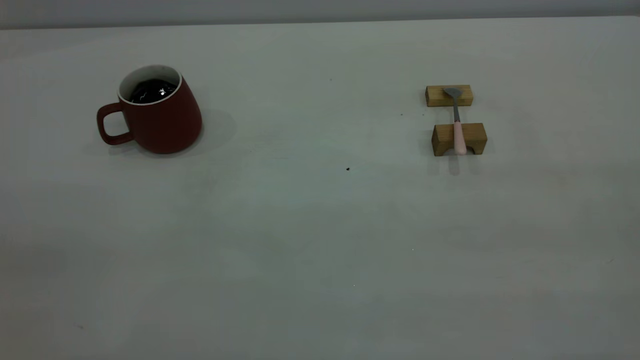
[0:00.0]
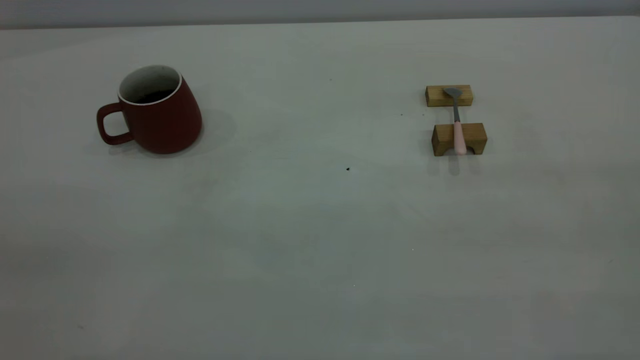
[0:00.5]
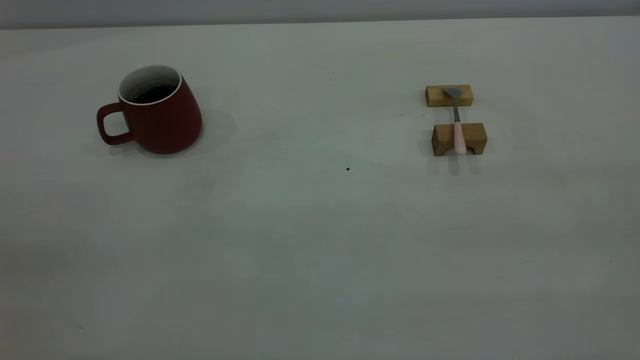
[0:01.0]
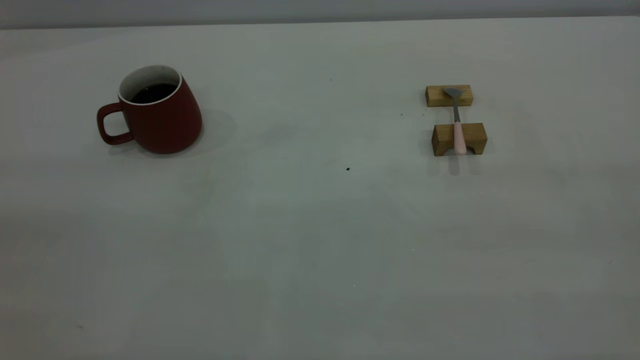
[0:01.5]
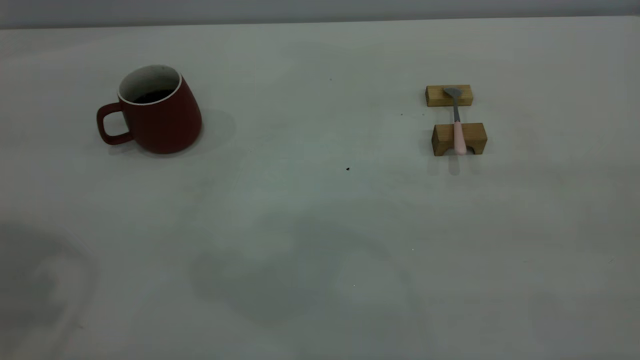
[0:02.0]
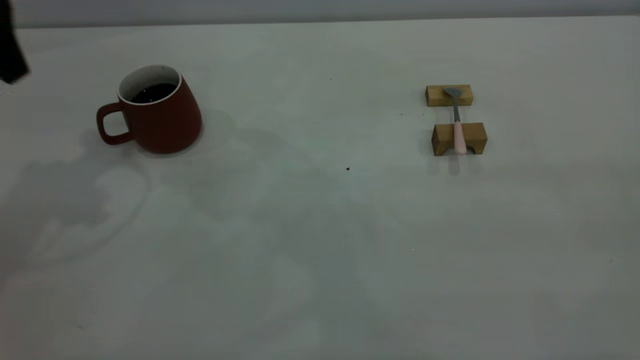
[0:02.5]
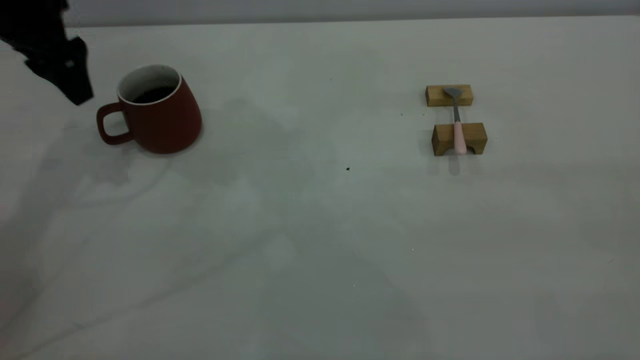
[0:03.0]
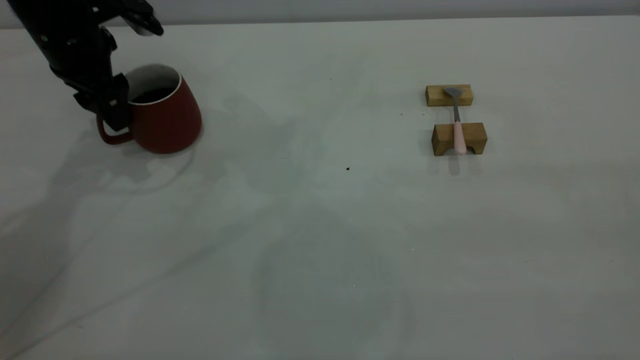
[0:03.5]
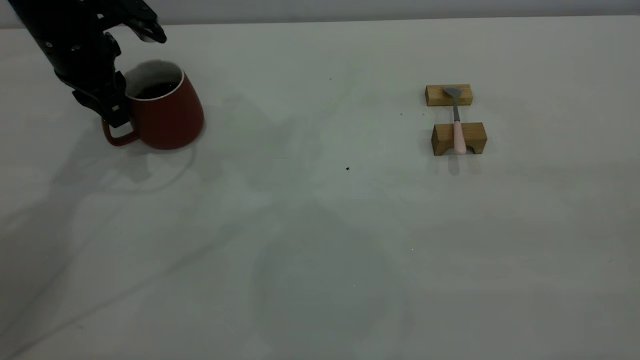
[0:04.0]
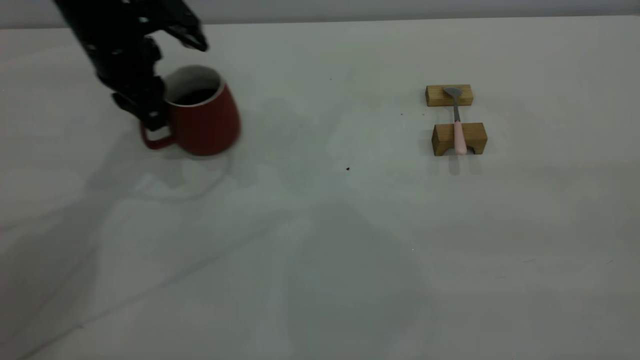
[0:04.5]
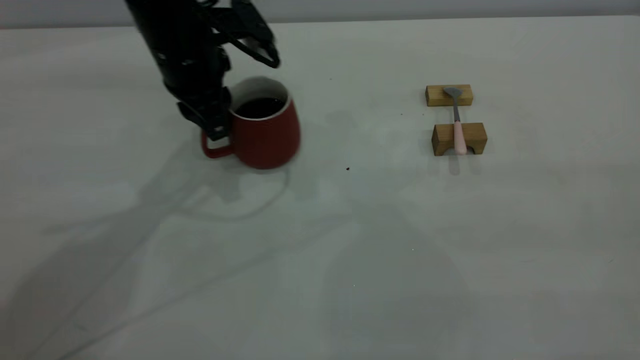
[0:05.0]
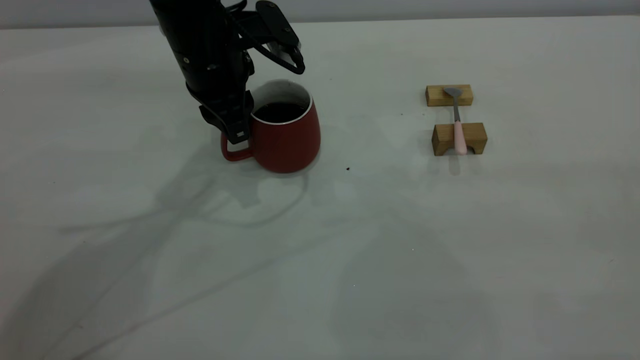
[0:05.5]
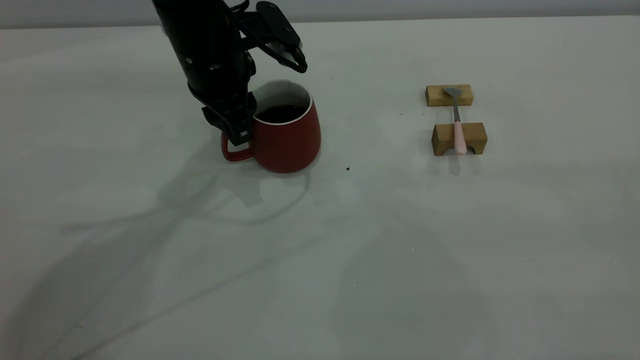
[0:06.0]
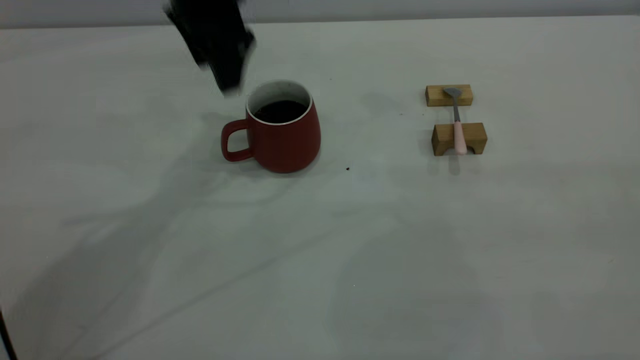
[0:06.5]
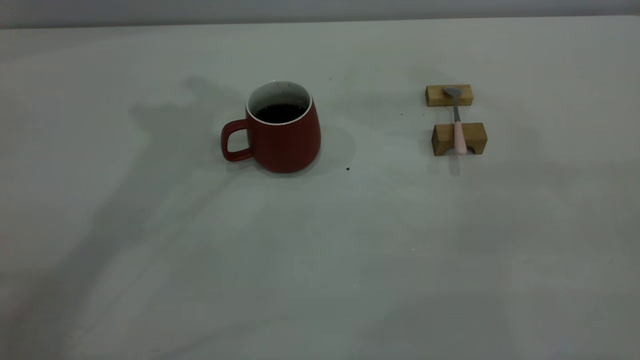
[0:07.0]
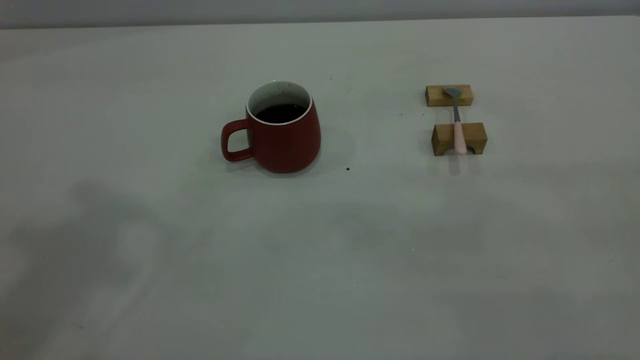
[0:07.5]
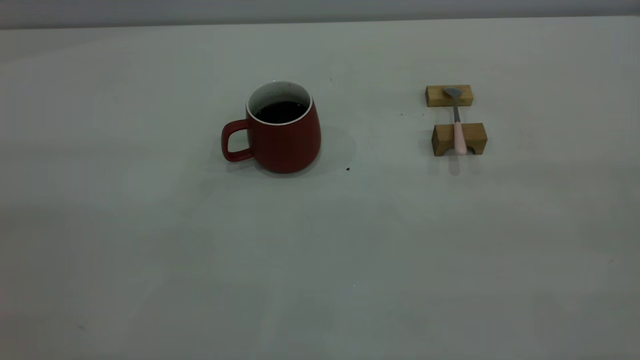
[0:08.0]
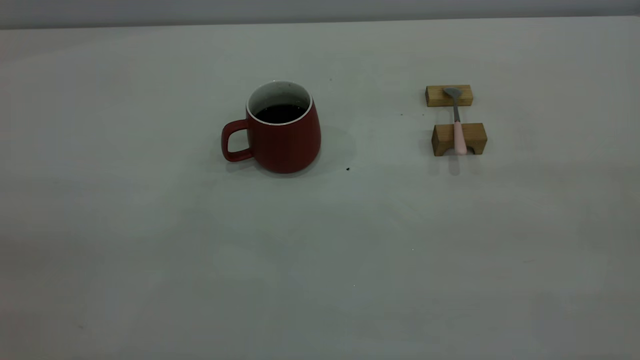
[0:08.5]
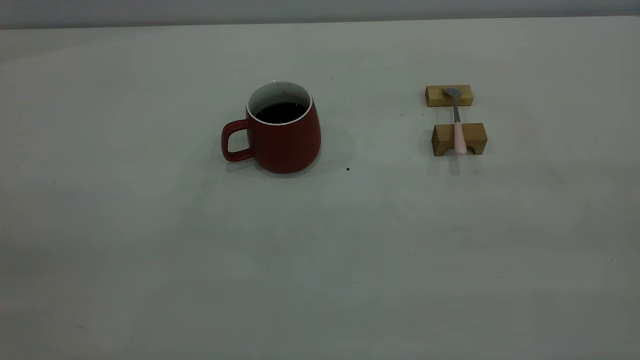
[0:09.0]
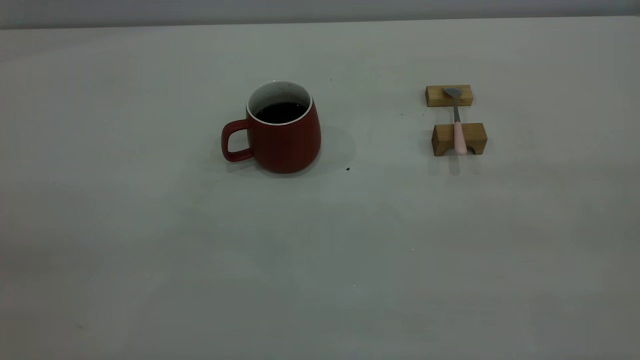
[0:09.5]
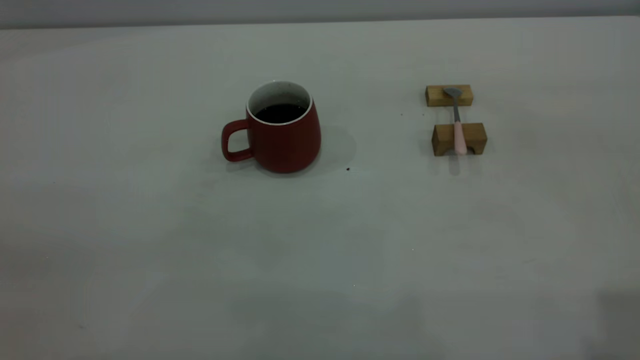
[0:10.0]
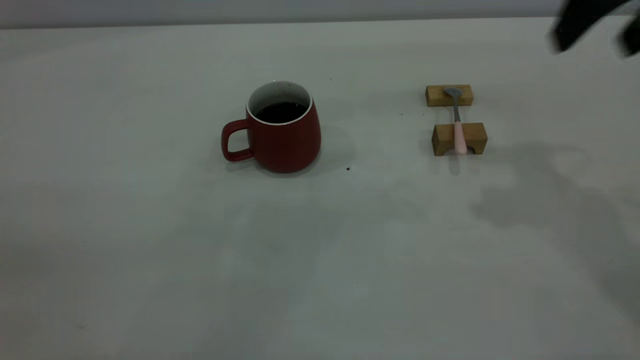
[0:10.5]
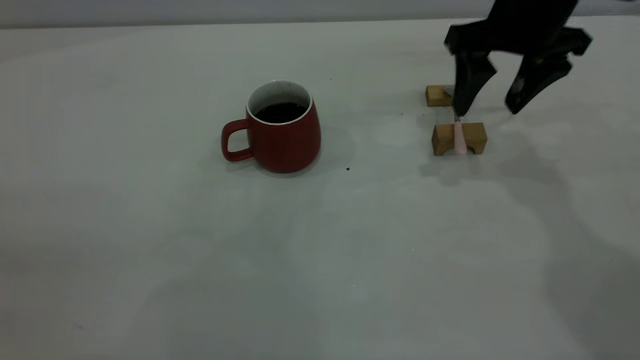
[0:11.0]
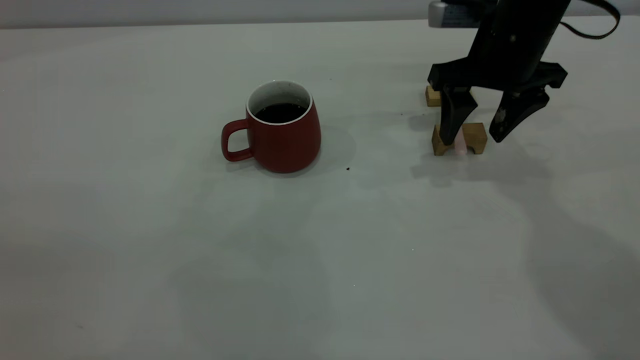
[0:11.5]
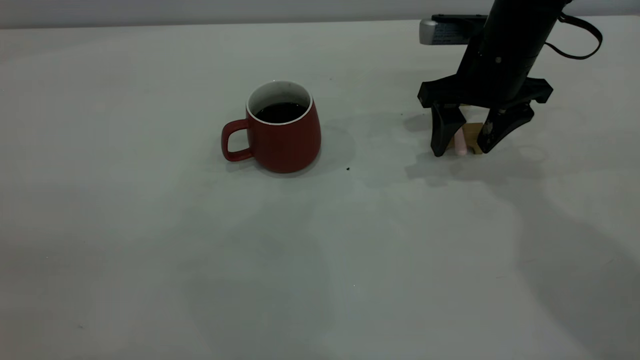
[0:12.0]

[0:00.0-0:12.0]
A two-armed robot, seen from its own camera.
Step, 0:00.0 to 0:06.0: Move the cup with coffee to the center of view.
0:02.0 to 0:04.0: The left gripper travels downward and forward by about 30 cm, and closes up.
0:04.0 to 0:06.0: The left gripper heads to the right, covering approximately 15 cm.
0:06.0 to 0:08.0: The left gripper travels backward, upward and to the left by some 50 cm, and opens, then closes again.
0:10.0 to 0:12.0: The right gripper travels downward, forward and to the left by roughly 40 cm.

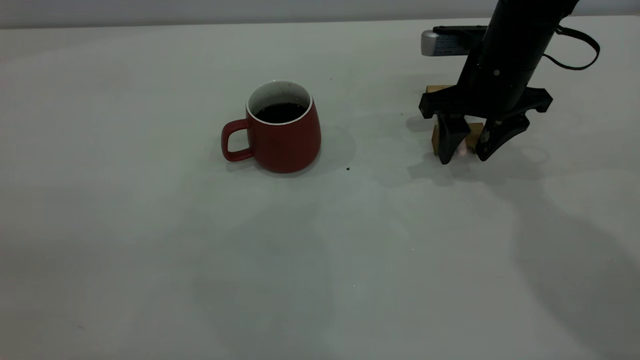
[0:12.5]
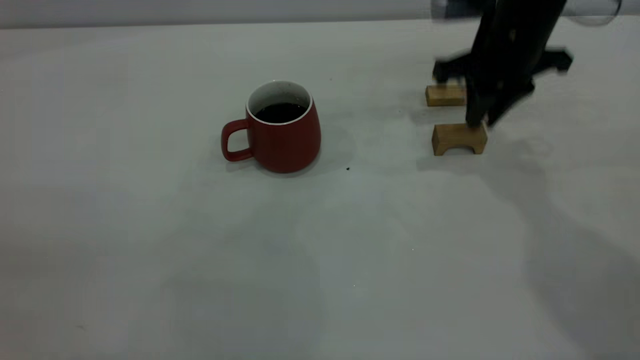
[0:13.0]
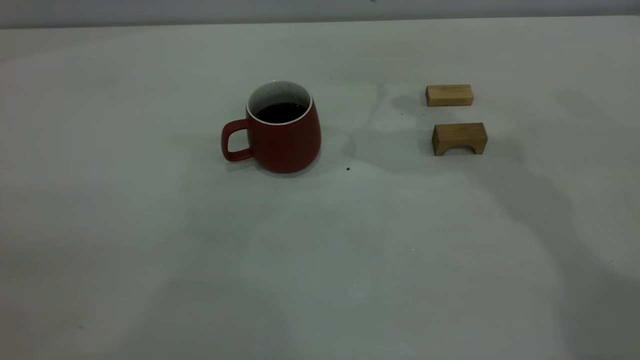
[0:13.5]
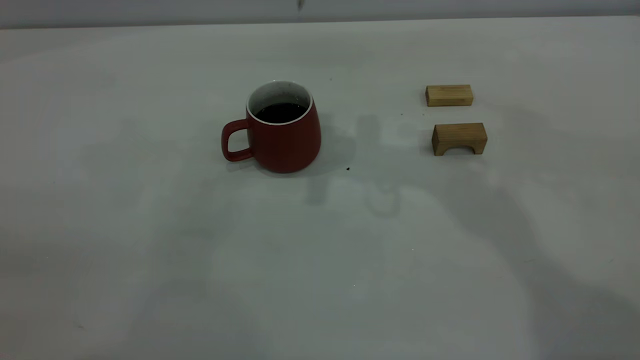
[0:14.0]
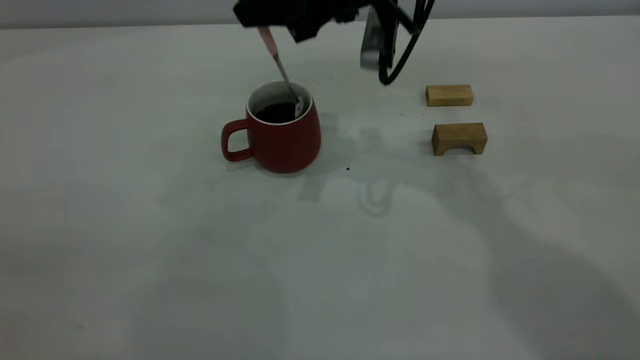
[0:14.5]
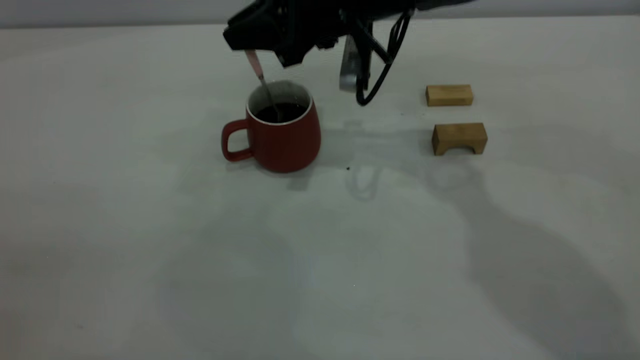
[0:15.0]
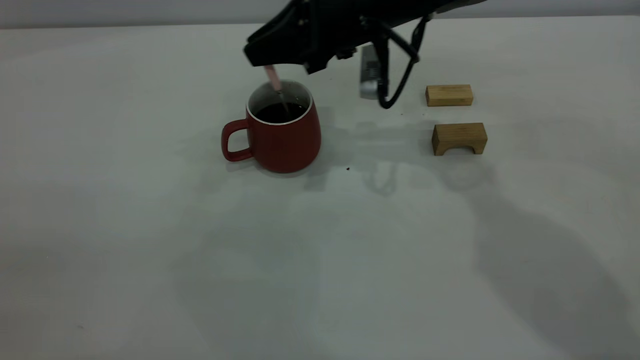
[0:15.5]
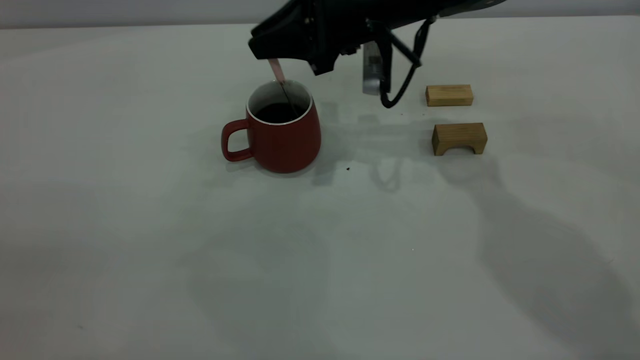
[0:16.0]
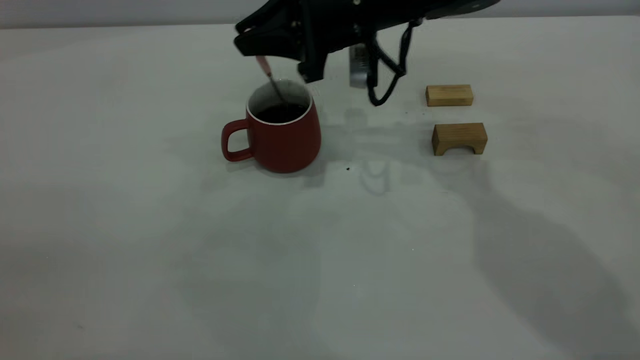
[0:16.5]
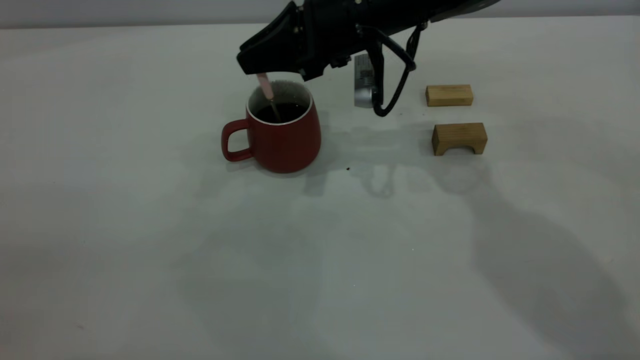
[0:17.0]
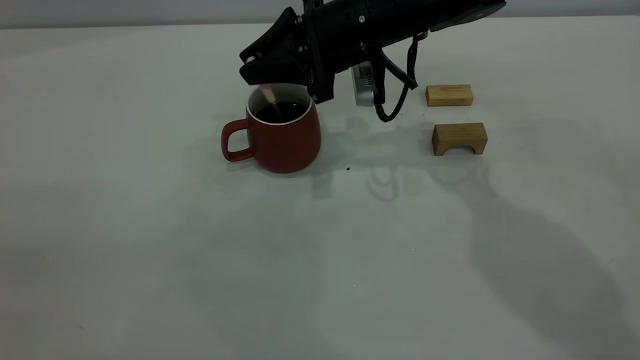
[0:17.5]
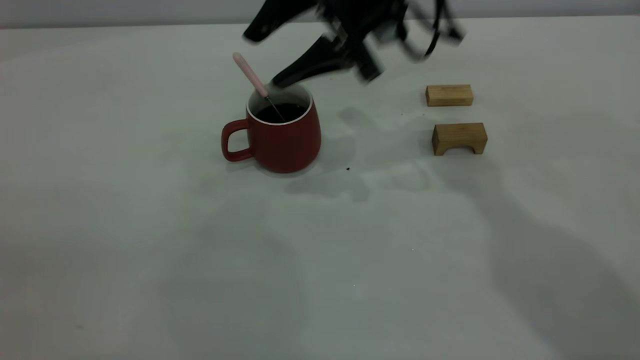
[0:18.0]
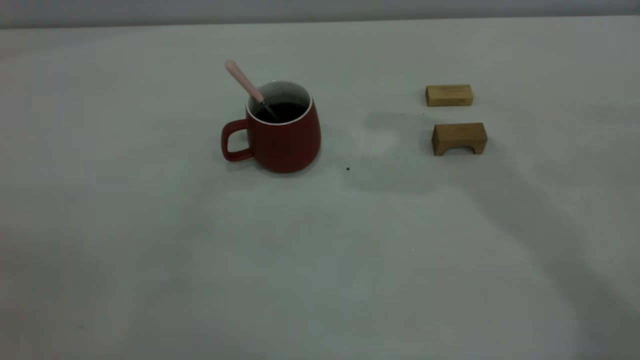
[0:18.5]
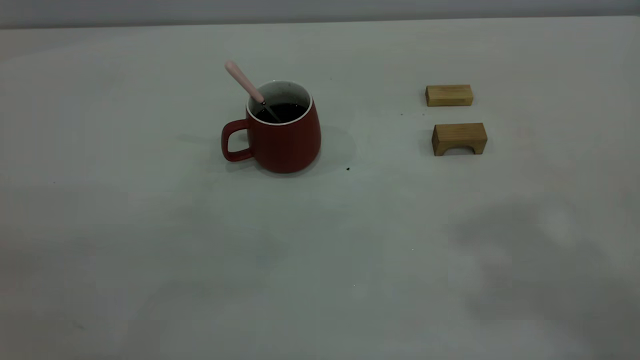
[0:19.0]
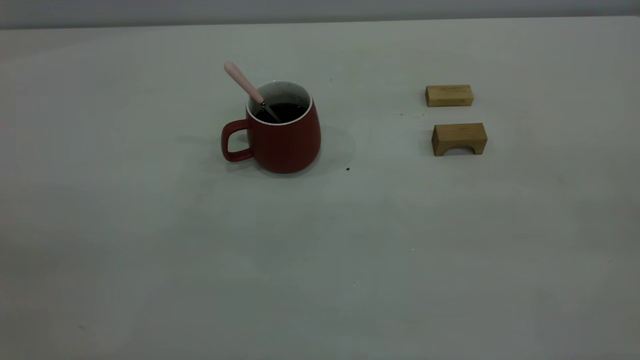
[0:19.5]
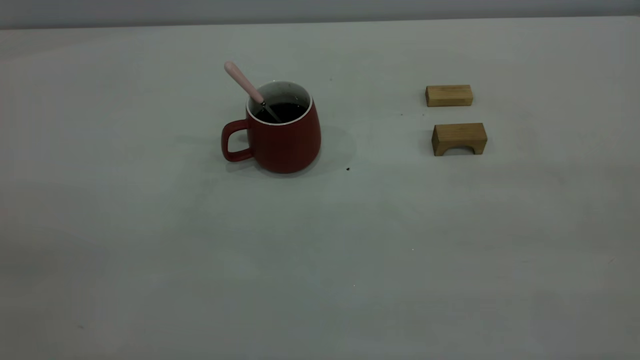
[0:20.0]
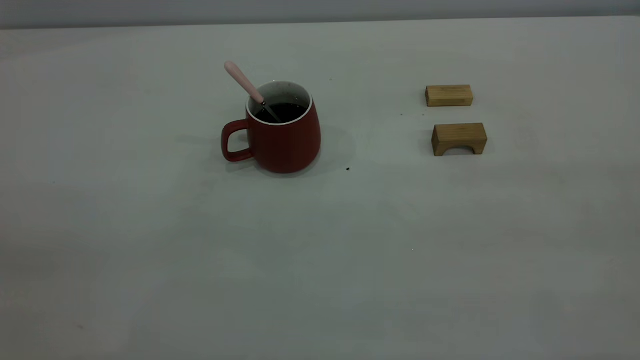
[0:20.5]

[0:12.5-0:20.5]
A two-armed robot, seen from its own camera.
Step, 0:13.5 to 0:18.0: Stir the coffee in the cup.
0:12.5 to 0:14.5: The right gripper heads to the left and upward, covering some 15 cm, and closes its fingers.
0:14.5 to 0:16.5: The right gripper ends up some 5 cm from where it was.
0:16.5 to 0:18.5: The right gripper heads upward, covering roughly 25 cm, and opens up.
